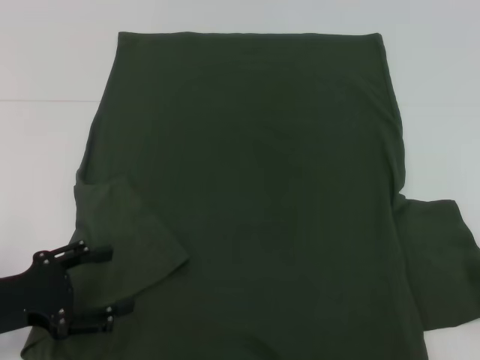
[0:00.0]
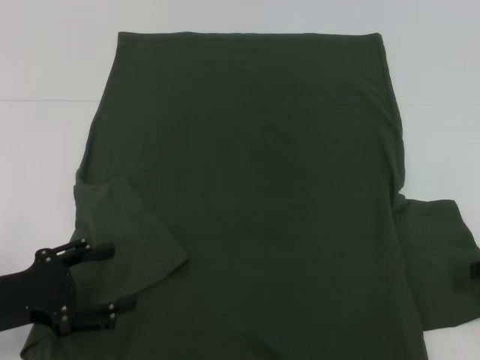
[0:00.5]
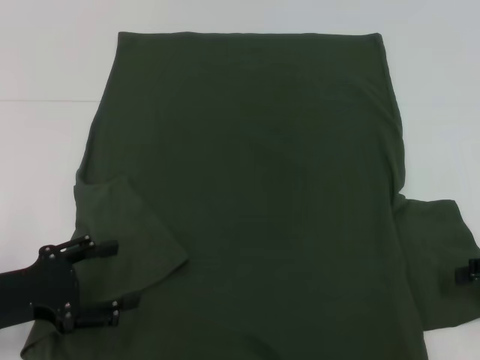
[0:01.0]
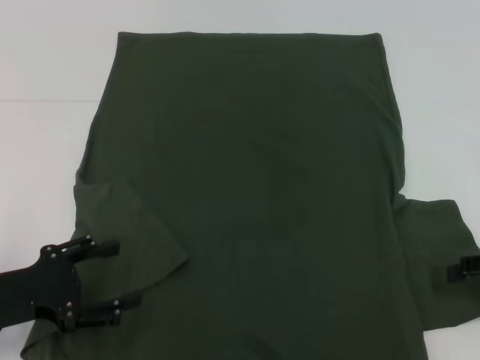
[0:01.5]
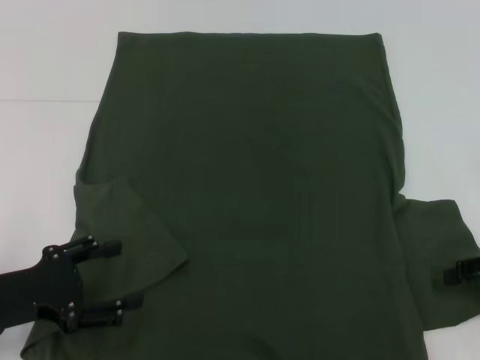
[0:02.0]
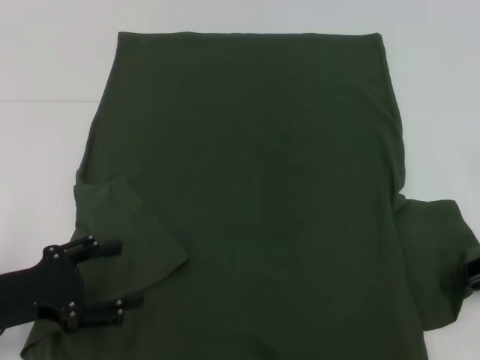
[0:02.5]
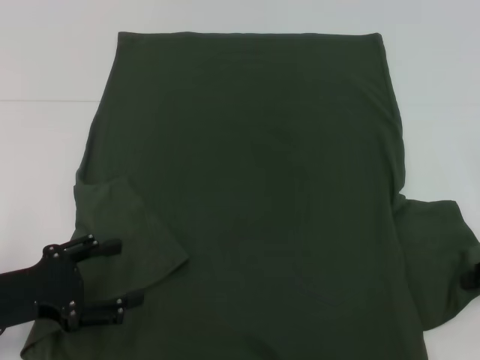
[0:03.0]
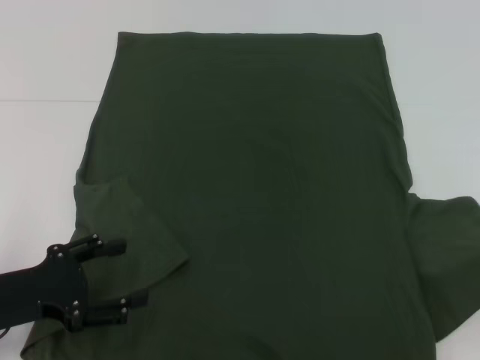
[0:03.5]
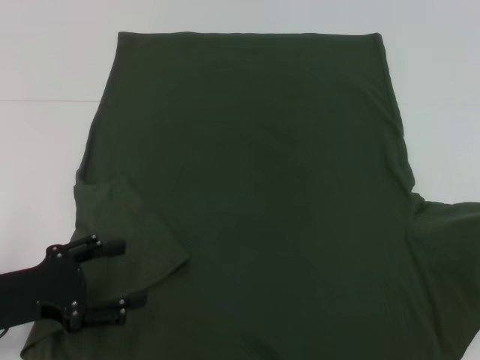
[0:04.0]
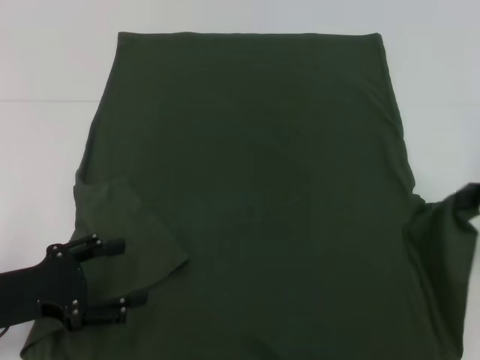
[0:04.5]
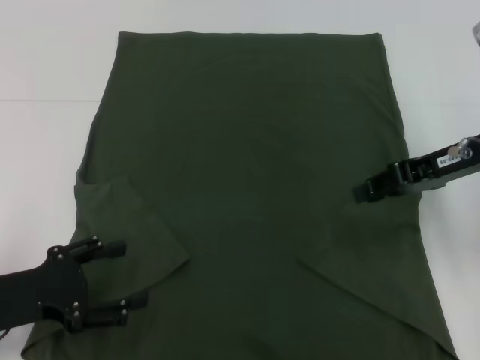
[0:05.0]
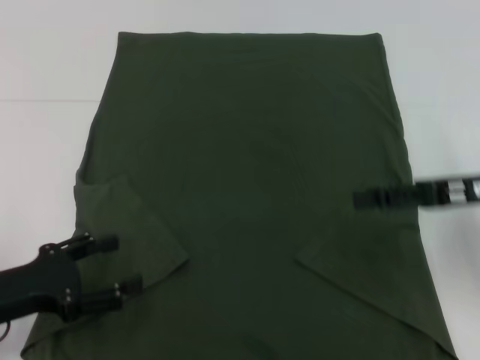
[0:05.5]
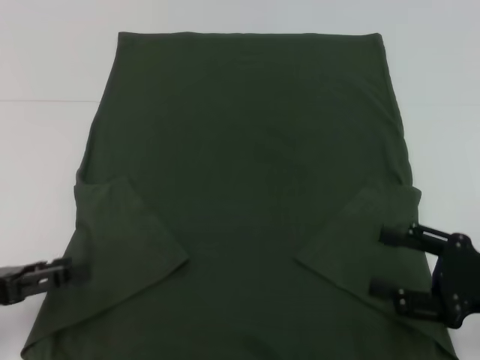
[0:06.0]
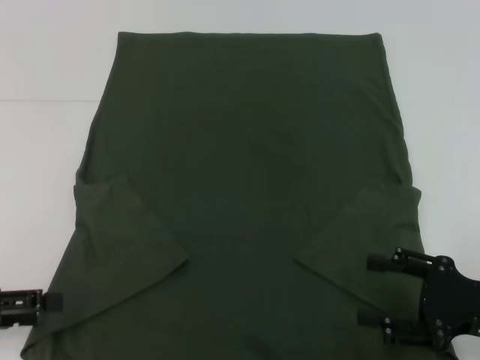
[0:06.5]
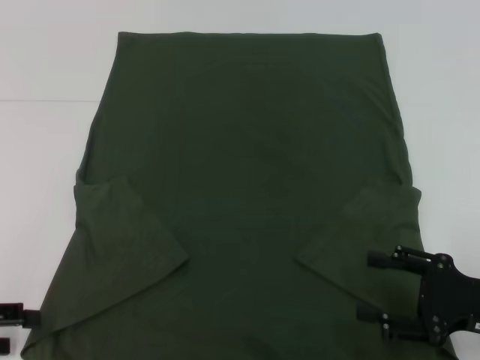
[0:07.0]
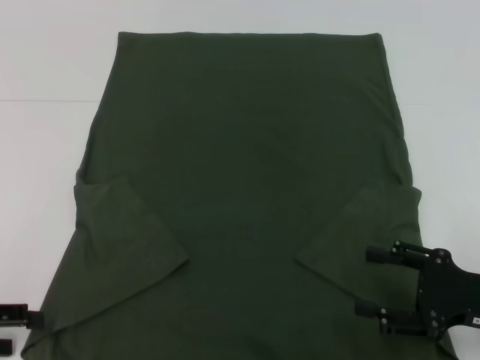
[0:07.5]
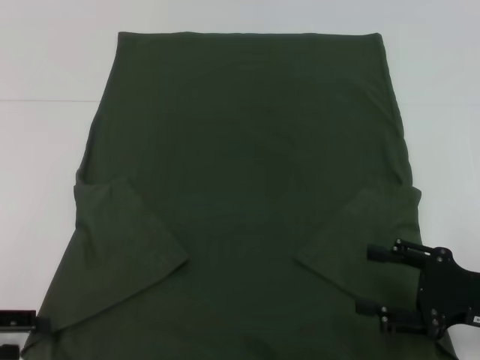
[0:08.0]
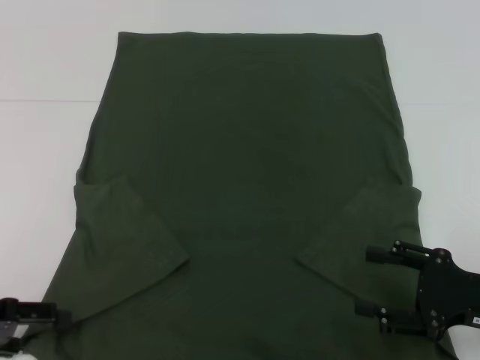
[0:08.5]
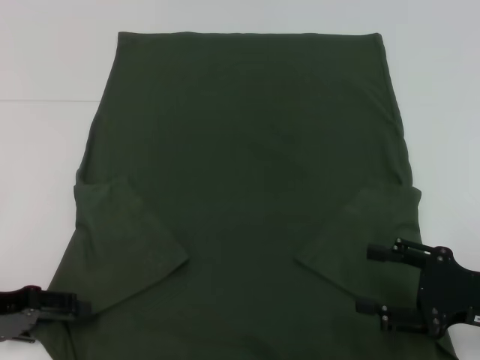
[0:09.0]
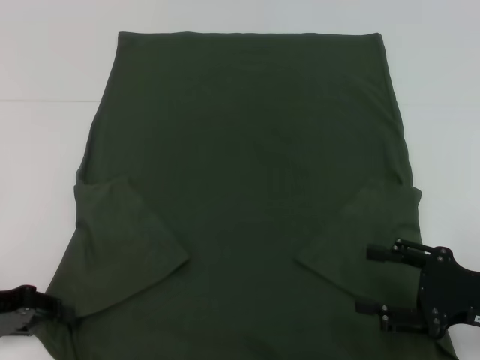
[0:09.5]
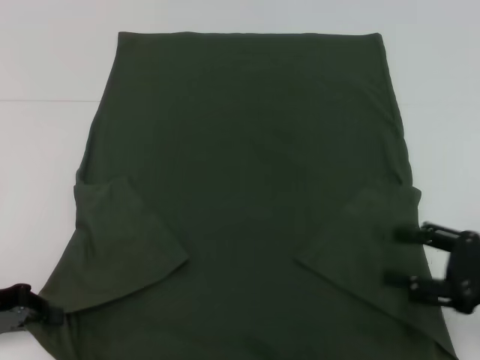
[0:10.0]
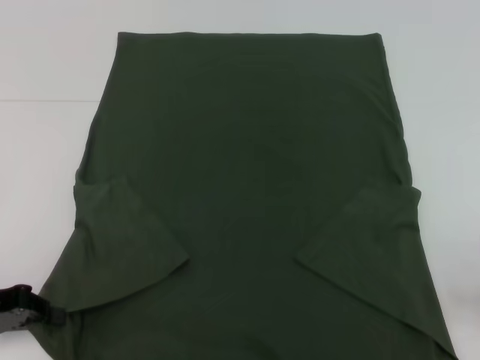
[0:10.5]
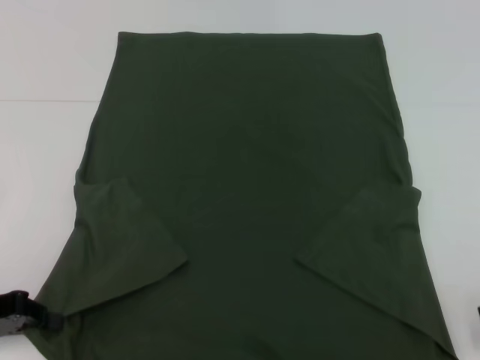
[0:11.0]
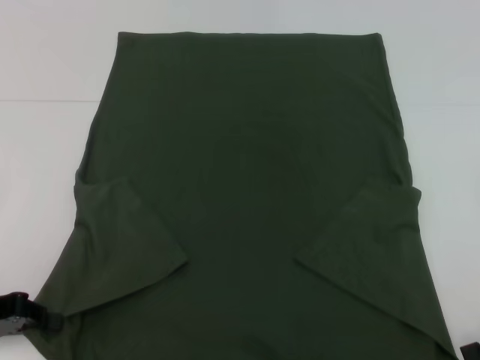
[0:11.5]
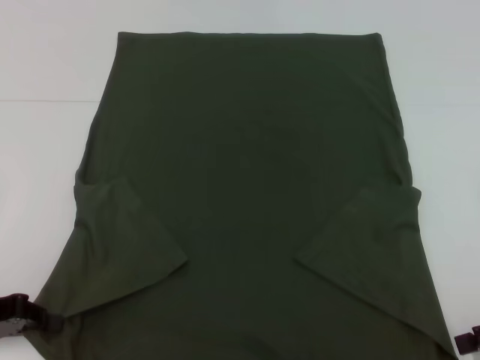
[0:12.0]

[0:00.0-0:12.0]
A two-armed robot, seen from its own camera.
Step, 0:03.5 to 0:07.0: Fold the bottom right sleeve with your right hand.
Step, 0:07.5 to 0:09.5: Grab the bottom left corner with your left hand.
0:02.0 to 0:04.0: The right gripper heads upward, covering about 5 cm, and closes up.
0:04.0 to 0:06.0: The right gripper heads to the left, downward and backward, covering about 15 cm, and opens up.
0:08.0 to 0:10.0: The left gripper closes.
0:10.0 to 0:12.0: The right gripper heads to the right, covering about 5 cm.

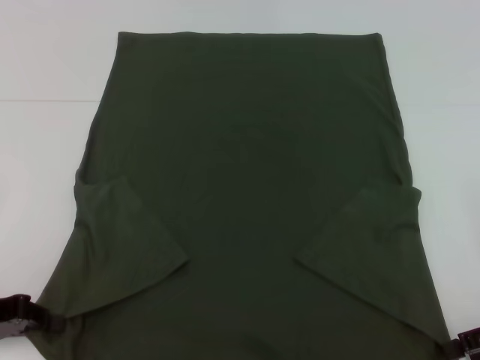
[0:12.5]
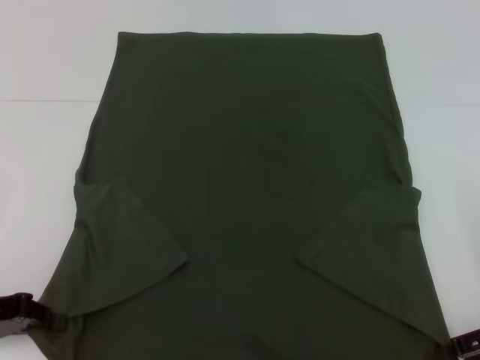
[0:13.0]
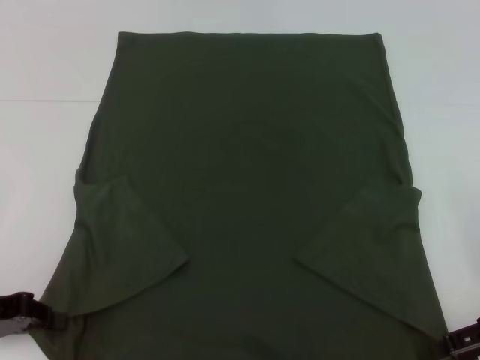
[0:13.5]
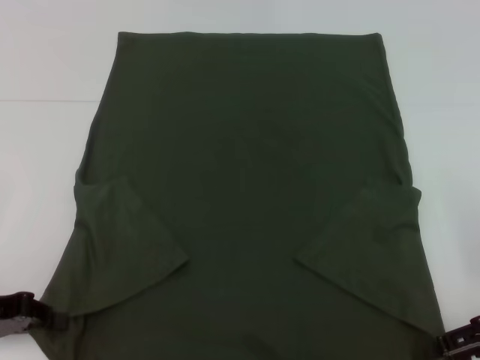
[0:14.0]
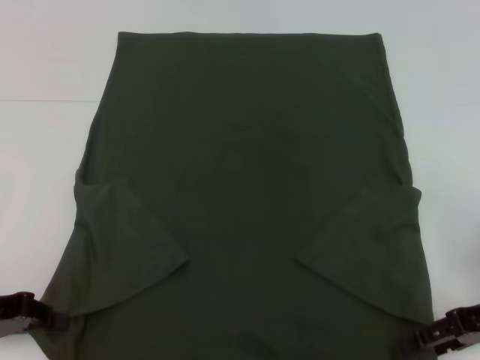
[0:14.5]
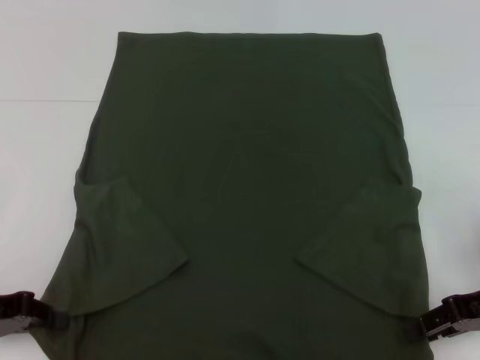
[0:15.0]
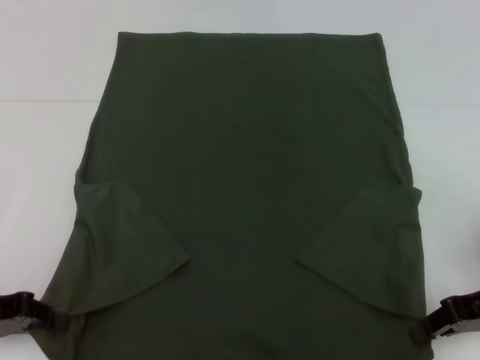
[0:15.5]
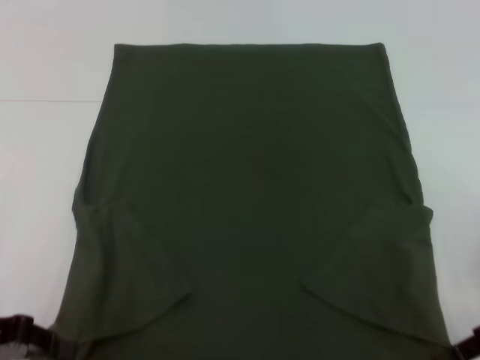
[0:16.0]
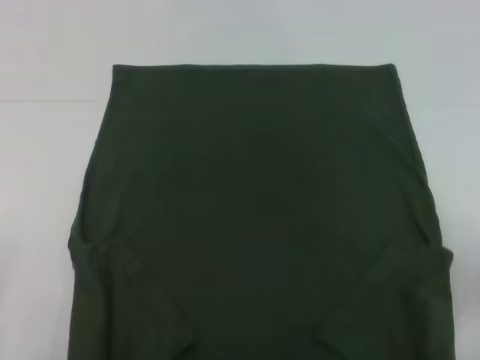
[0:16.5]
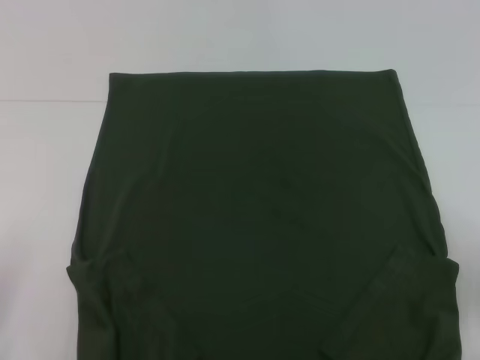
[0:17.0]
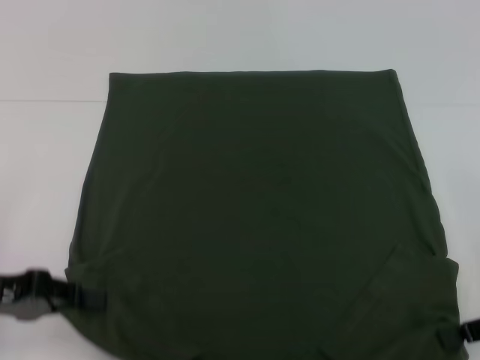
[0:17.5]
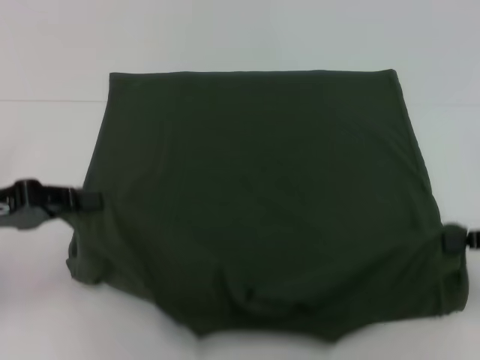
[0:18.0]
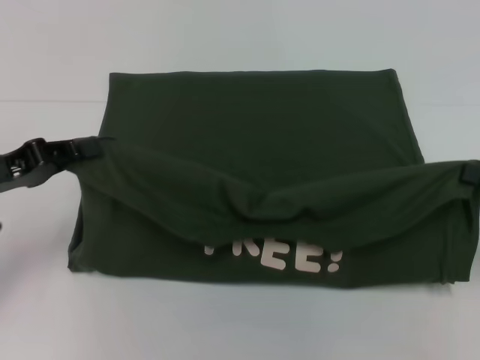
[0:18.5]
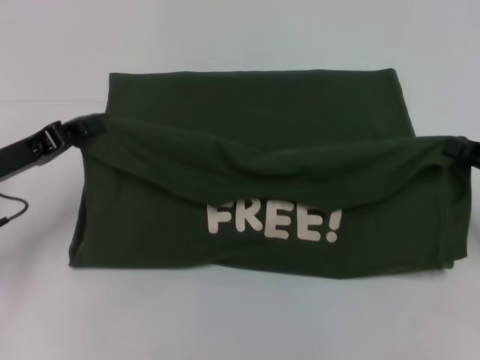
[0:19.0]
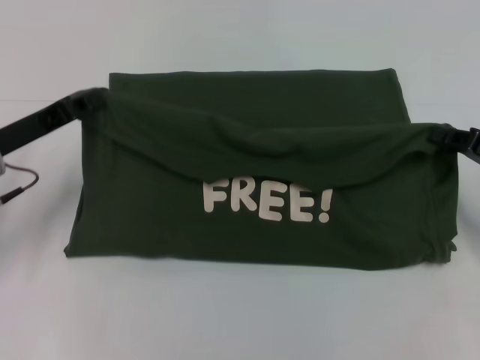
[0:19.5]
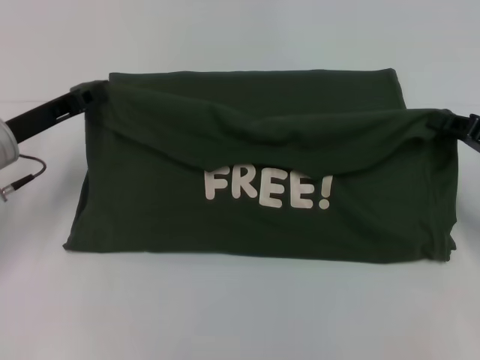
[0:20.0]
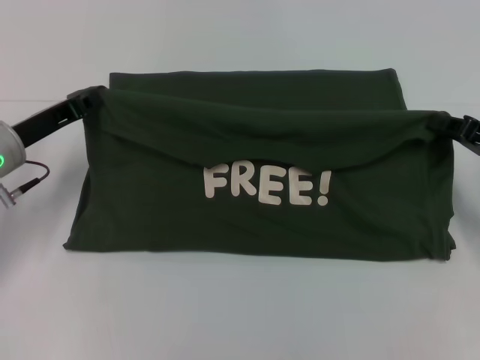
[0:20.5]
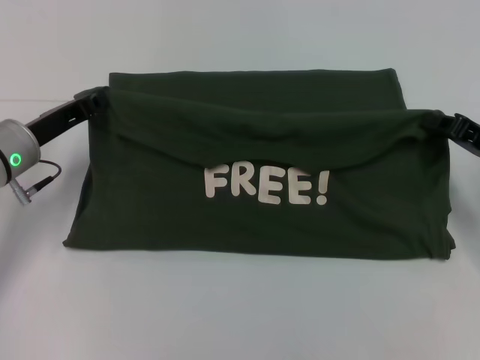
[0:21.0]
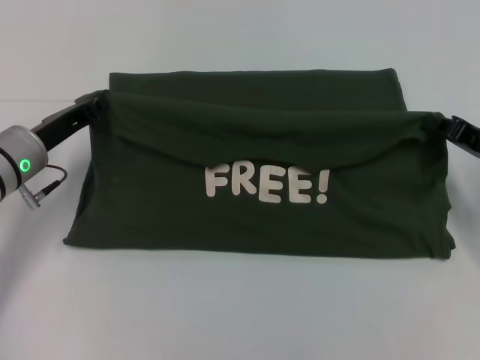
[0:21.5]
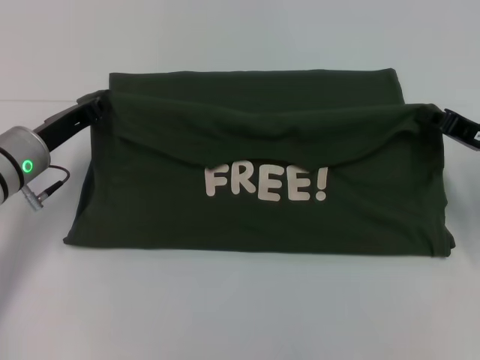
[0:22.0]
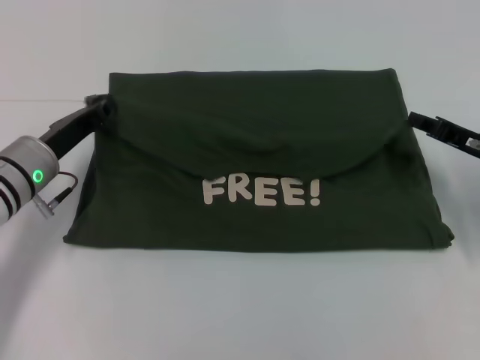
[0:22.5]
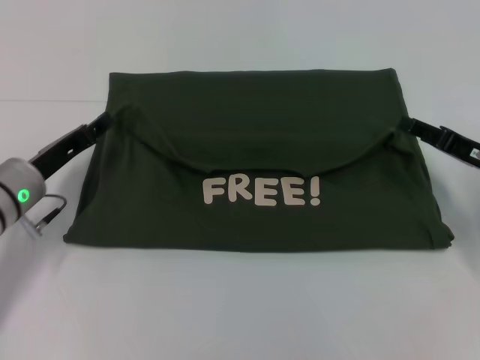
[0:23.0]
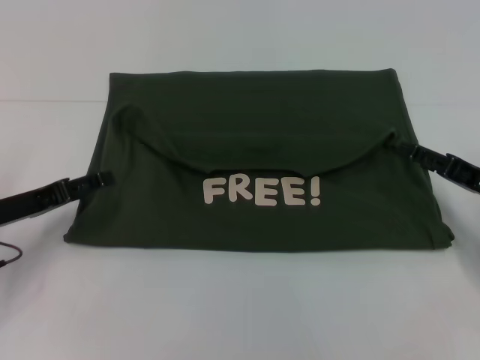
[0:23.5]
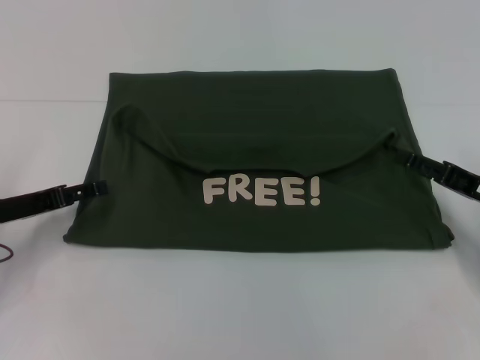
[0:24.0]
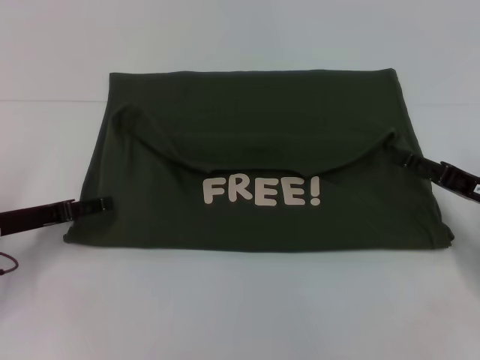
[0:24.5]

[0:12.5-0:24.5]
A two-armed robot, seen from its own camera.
Step, 0:14.5 to 0:23.0: Fold the clothes with your left hand.
Step, 0:14.5 to 0:23.0: Fold the clothes with your right hand.
0:12.5 to 0:14.5: The grippers stay close to where they were, moving slightly.
0:14.5 to 0:16.5: The right gripper closes up.
0:16.5 to 0:18.5: The left gripper moves forward, about 10 cm. The right gripper travels to the right by approximately 5 cm.
0:18.5 to 0:20.5: The grippers both shift forward by approximately 5 cm.
0:20.5 to 0:22.5: The grippers move only a little.
0:22.5 to 0:24.5: The left gripper is displaced to the left and backward by about 10 cm, and opens its fingers. Meanwhile the right gripper shifts by about 5 cm, and opens its fingers.

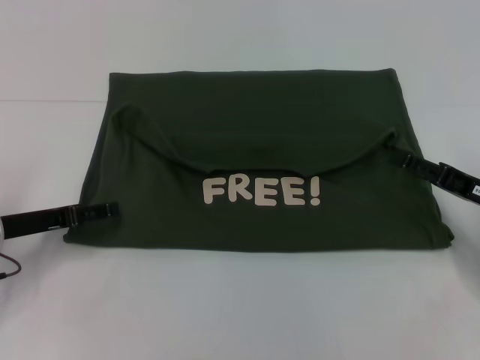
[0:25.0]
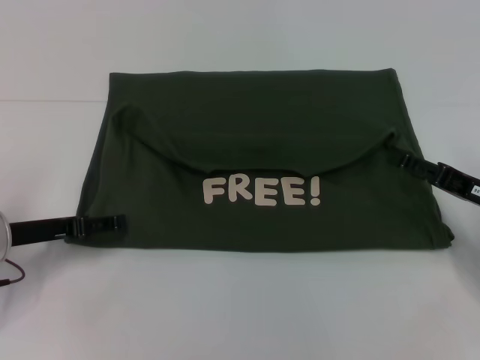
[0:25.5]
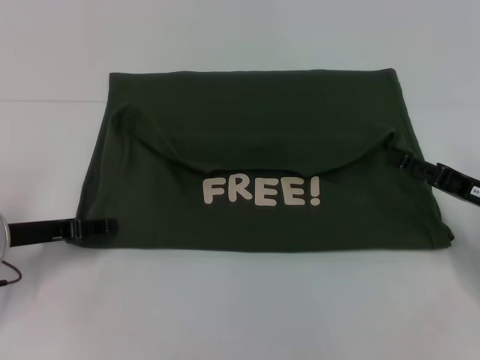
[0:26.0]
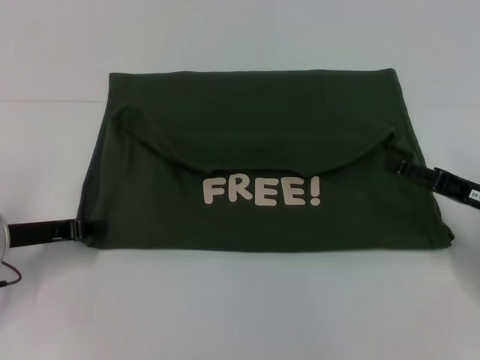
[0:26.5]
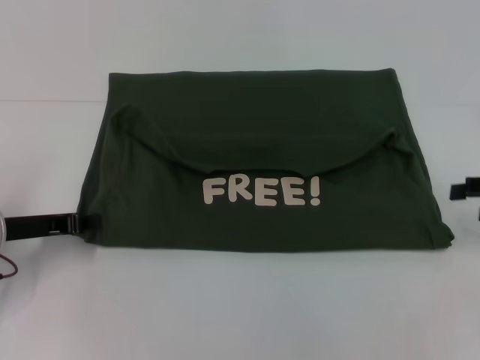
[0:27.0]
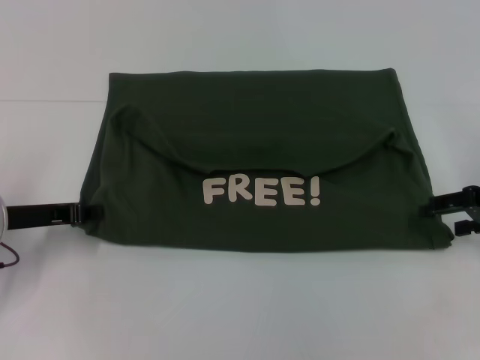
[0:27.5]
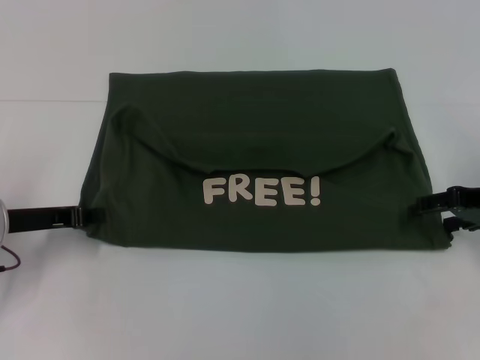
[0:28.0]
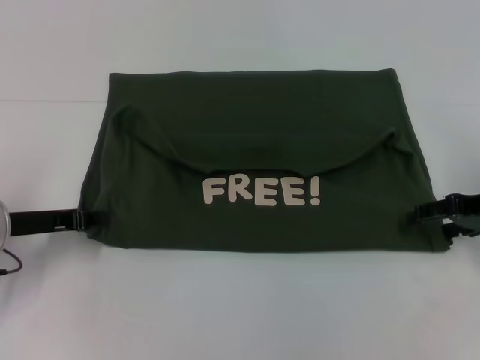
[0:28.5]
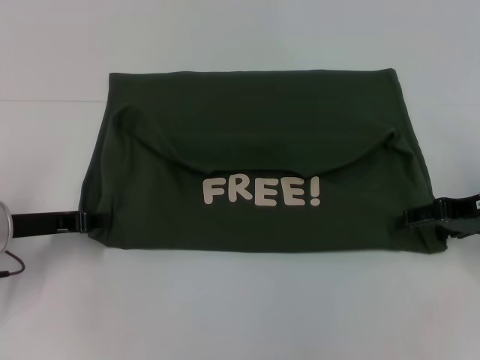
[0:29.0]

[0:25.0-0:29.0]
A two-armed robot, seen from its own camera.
0:25.0 to 0:27.0: The left gripper closes its fingers; the right gripper shifts some 10 cm upward and to the right.
0:27.0 to 0:29.0: The right gripper moves to the left, approximately 5 cm.
